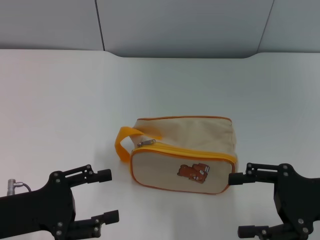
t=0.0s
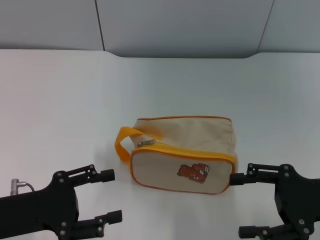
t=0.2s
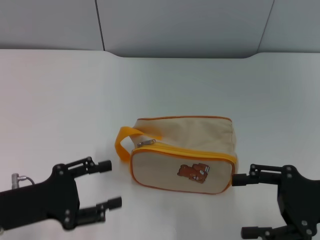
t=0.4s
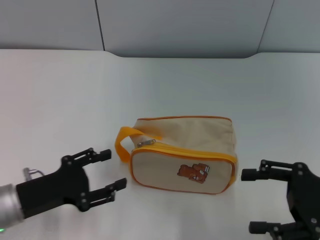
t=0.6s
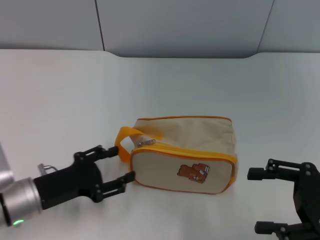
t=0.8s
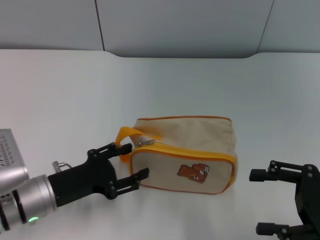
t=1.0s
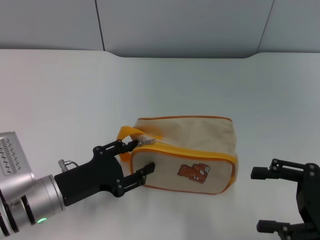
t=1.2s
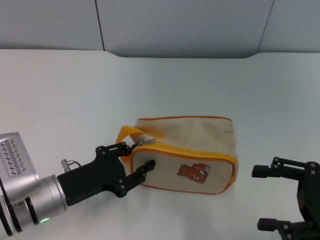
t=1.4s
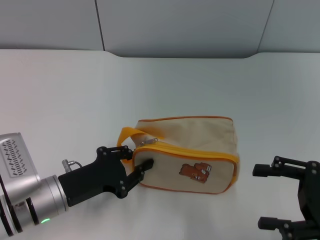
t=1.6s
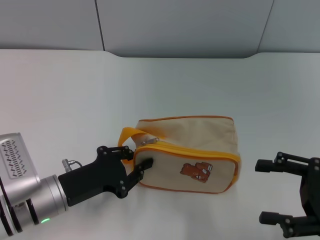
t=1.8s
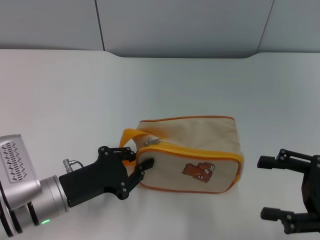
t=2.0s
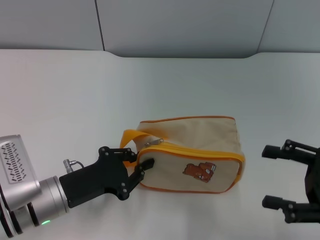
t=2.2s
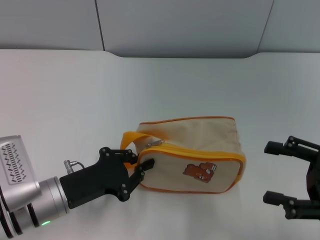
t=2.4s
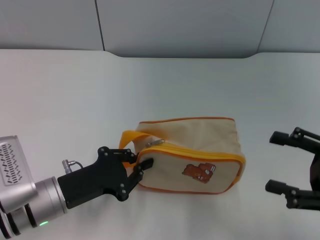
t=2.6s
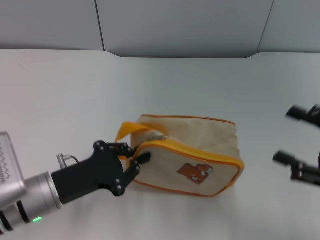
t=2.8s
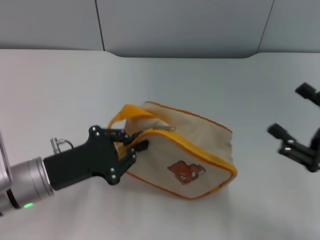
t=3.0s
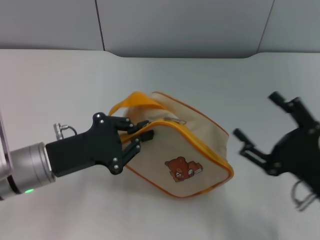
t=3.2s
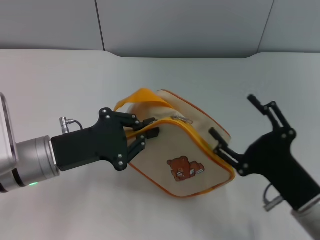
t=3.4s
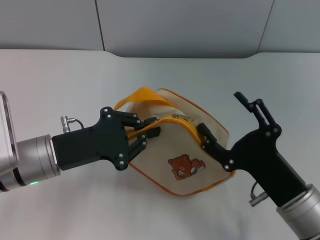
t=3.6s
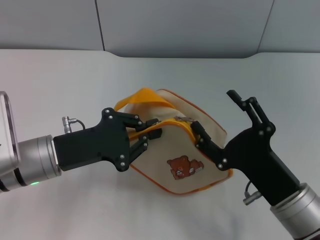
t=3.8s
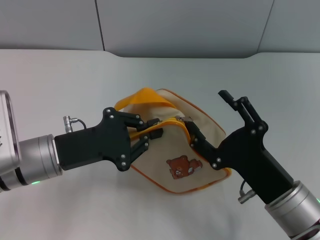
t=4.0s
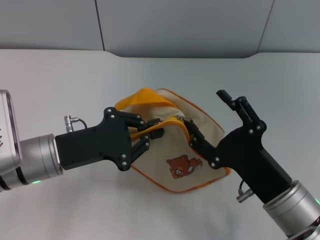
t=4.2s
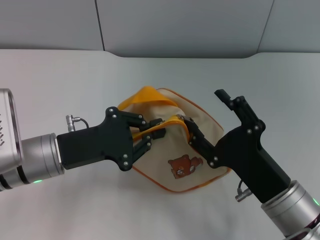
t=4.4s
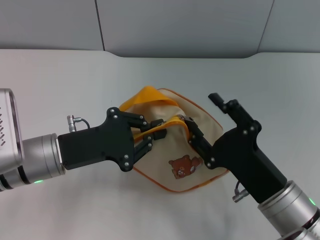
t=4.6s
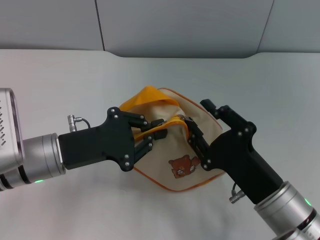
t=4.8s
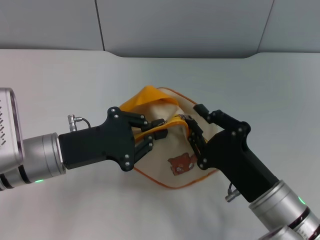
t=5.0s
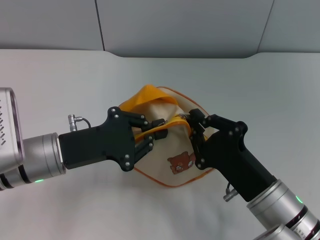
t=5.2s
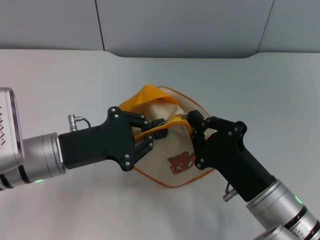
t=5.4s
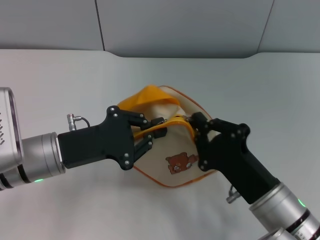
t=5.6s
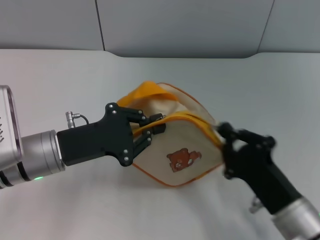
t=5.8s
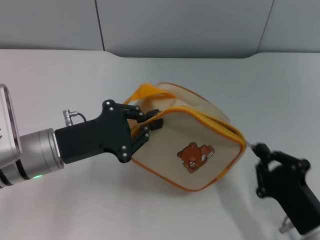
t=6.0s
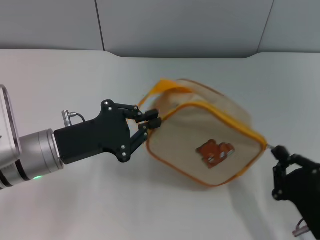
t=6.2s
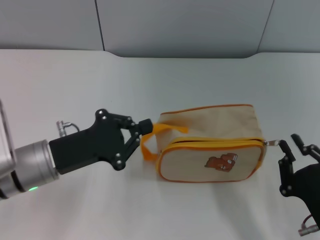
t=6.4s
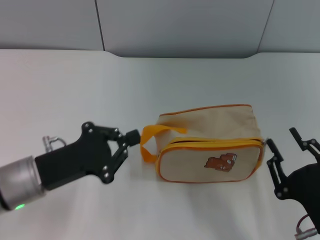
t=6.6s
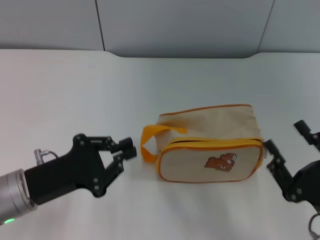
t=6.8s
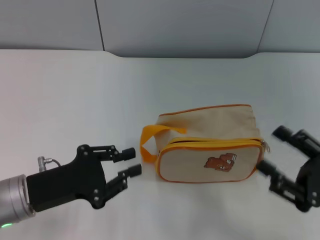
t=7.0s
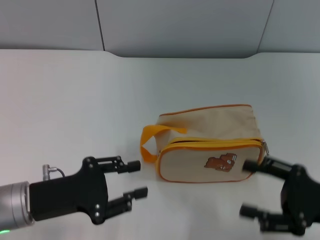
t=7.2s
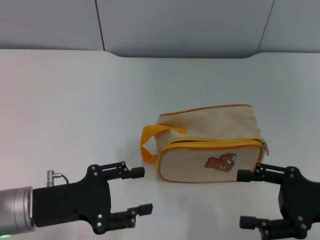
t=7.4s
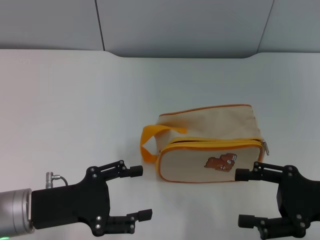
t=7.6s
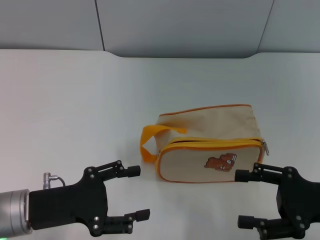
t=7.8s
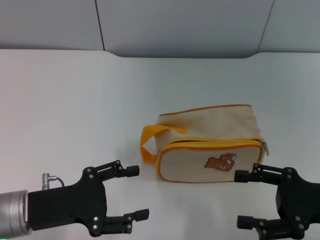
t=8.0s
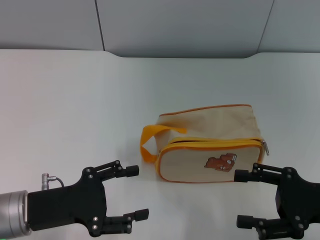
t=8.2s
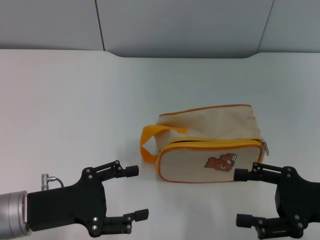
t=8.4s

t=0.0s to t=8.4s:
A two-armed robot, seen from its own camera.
Step, t=0.0s to t=3.0s: Pick up the bag with left gripper.
Step, t=3.4s to t=6.8s: Unzip the zipper of bag with right gripper.
t=0.0s to t=1.4s: The left gripper heads to the right and downward, covering about 10 cm.
t=1.4s to t=2.8s: The left gripper closes up.
t=2.8s to t=4.2s: The left gripper ends up about 5 cm from where it was; the right gripper is displaced to the left by some 15 cm.
t=4.2s to t=5.6s: The right gripper closes.
t=5.6s to t=7.0s: The right gripper travels to the right by approximately 15 cm, and opens. The left gripper shifts some 5 cm backward.
t=7.0s to t=8.4s: The left gripper opens. Meanwhile the right gripper shifts by roughly 5 cm.
